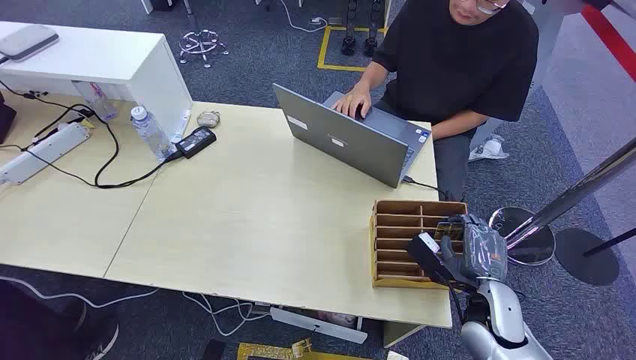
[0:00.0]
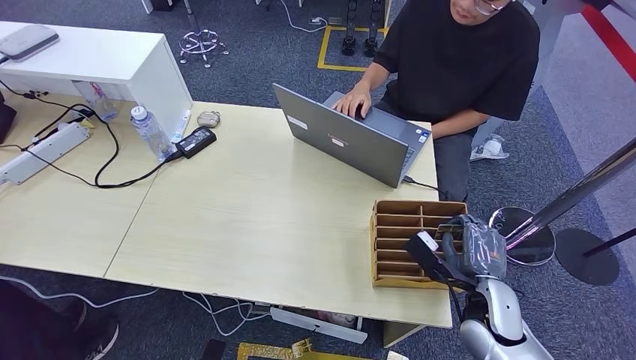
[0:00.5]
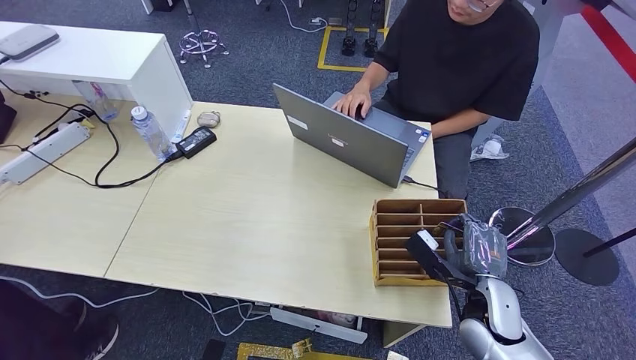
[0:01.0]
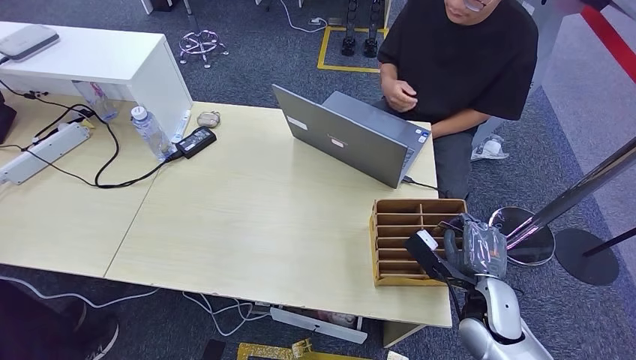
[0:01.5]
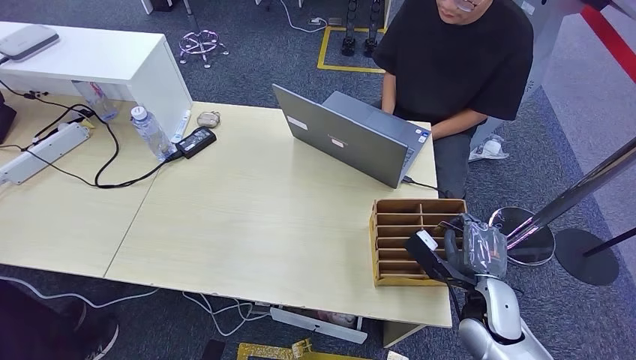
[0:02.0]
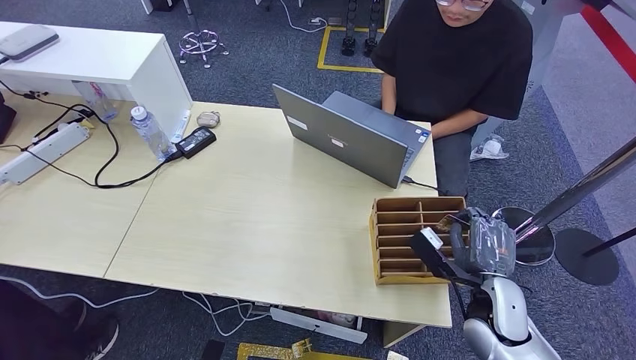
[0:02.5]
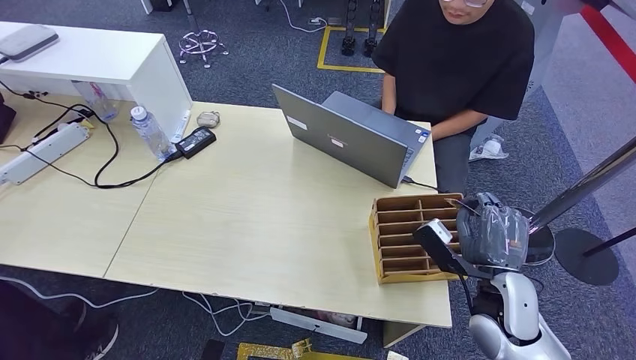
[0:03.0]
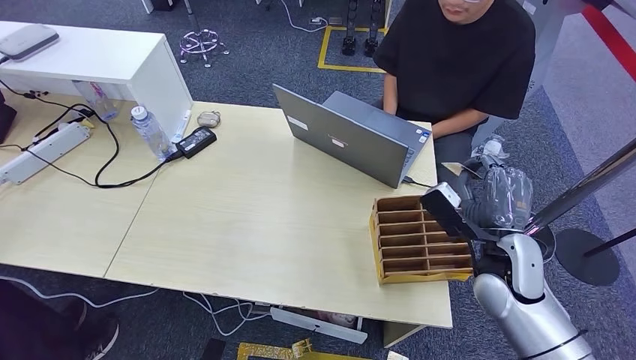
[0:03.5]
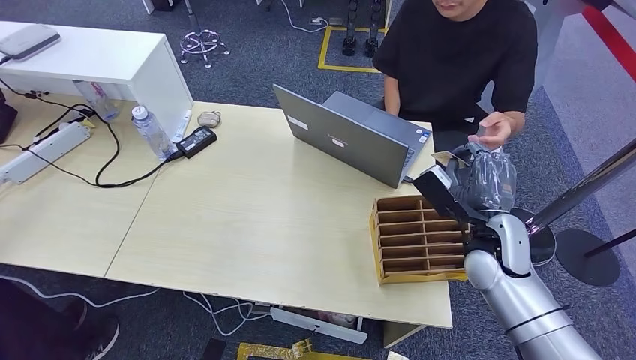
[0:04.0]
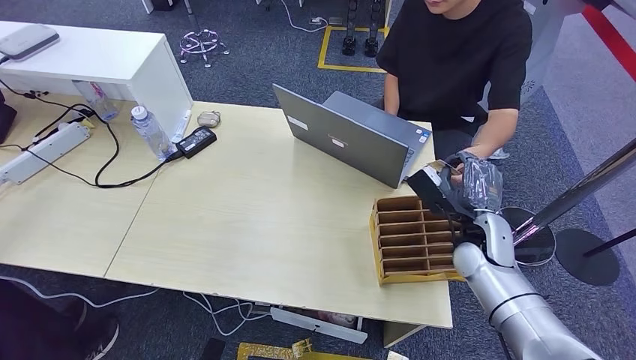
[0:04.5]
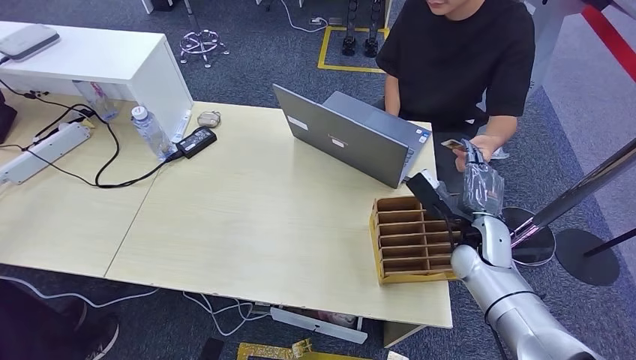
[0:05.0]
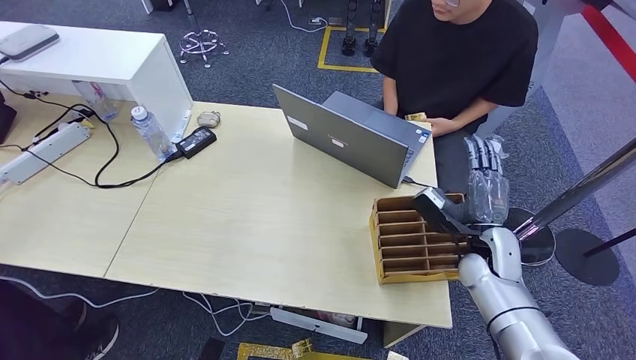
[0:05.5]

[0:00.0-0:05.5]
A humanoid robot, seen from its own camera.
Step, 0:00.0 to 0:03.5: Pick up the key card from the card box.
Step, 0:04.0 to 0:05.0: Hand the key card to the target.
0:02.0 to 0:03.5: The right hand is displaced upward by some 10 cm.
0:03.5 to 0:05.5: The right hand moves downward, about 5 cm.
